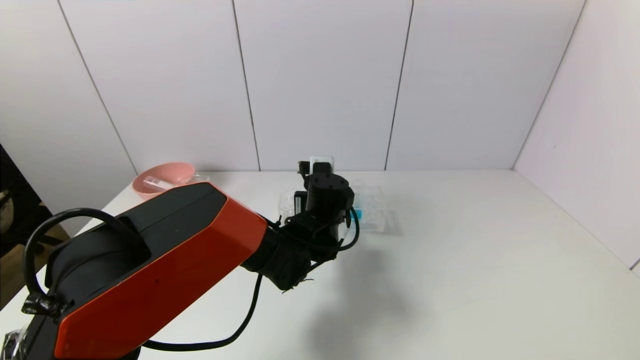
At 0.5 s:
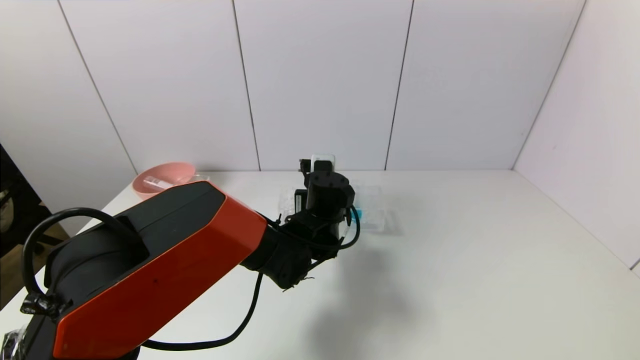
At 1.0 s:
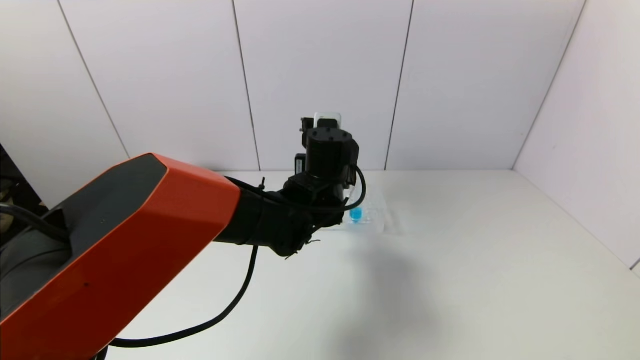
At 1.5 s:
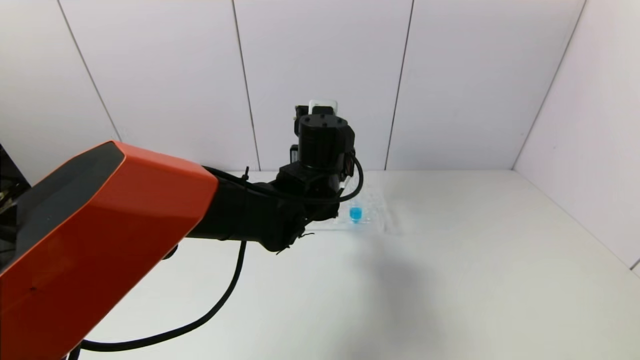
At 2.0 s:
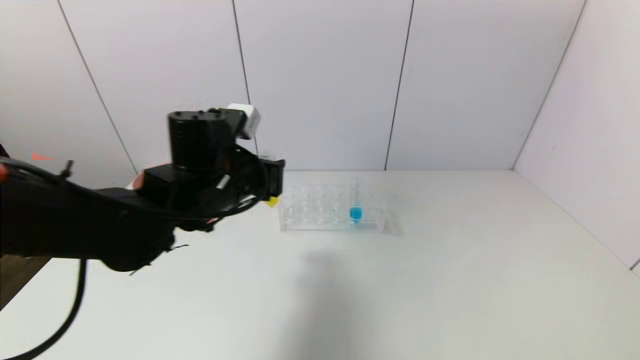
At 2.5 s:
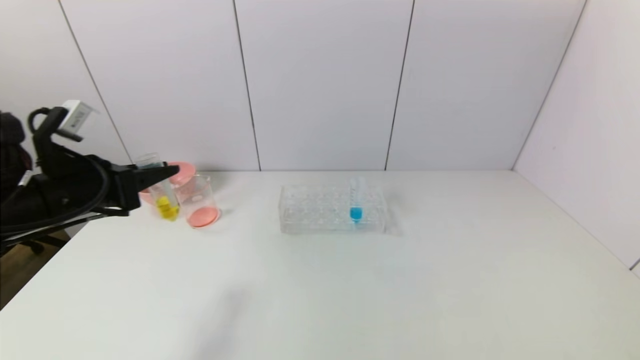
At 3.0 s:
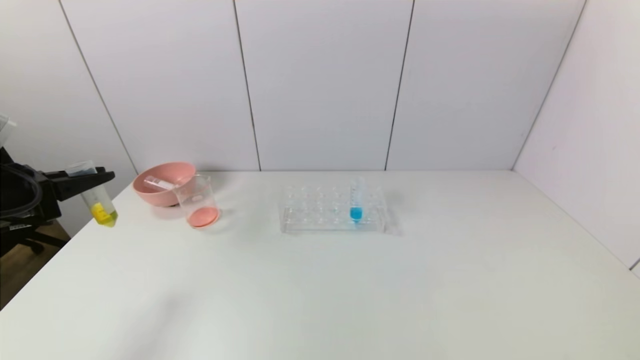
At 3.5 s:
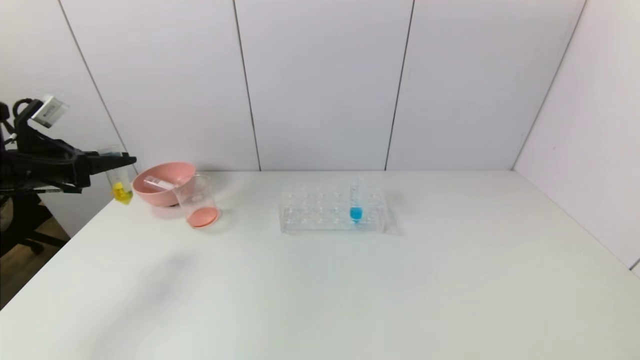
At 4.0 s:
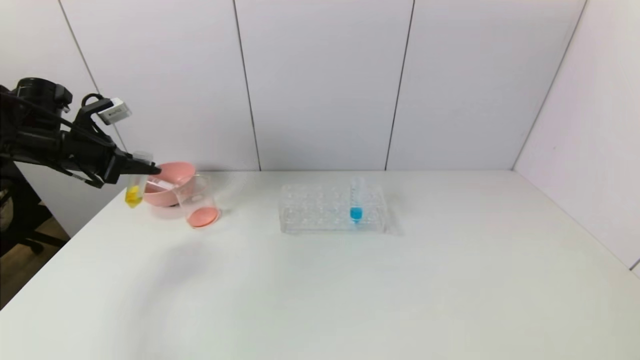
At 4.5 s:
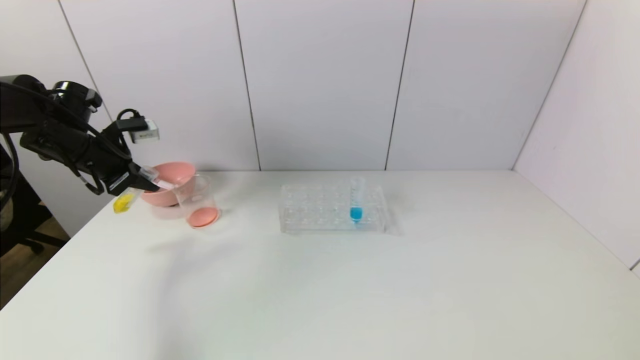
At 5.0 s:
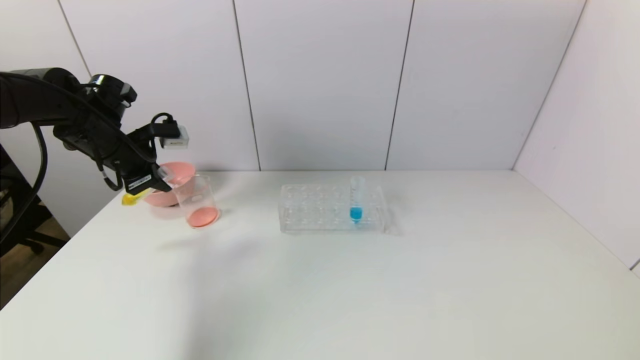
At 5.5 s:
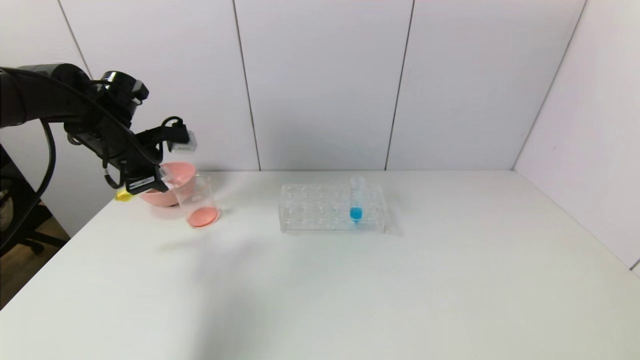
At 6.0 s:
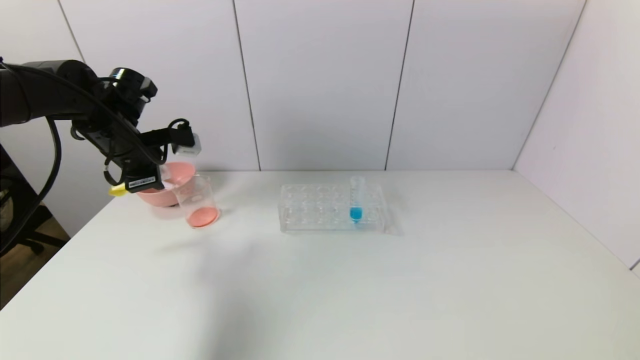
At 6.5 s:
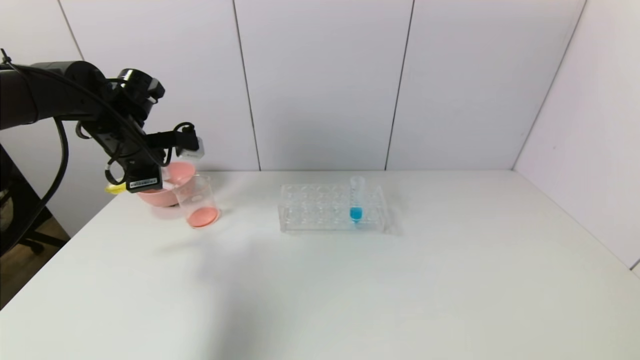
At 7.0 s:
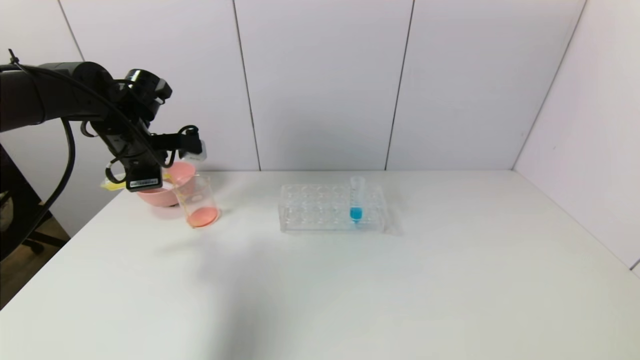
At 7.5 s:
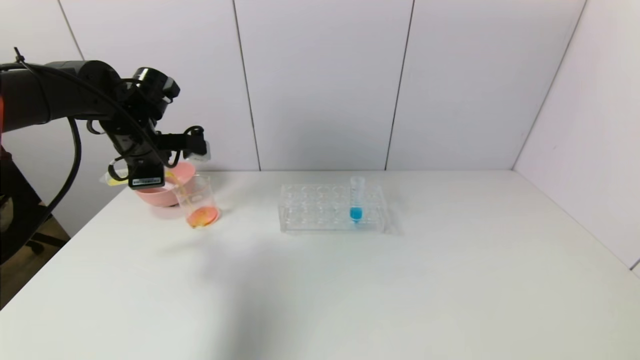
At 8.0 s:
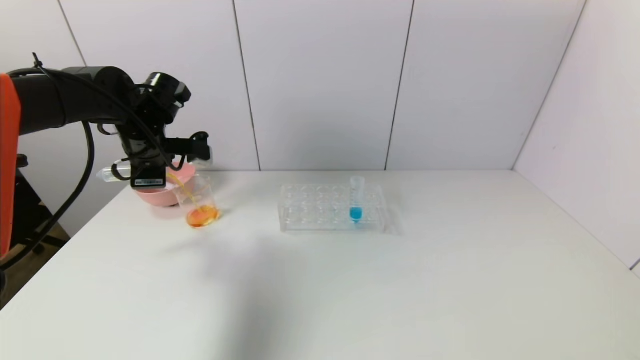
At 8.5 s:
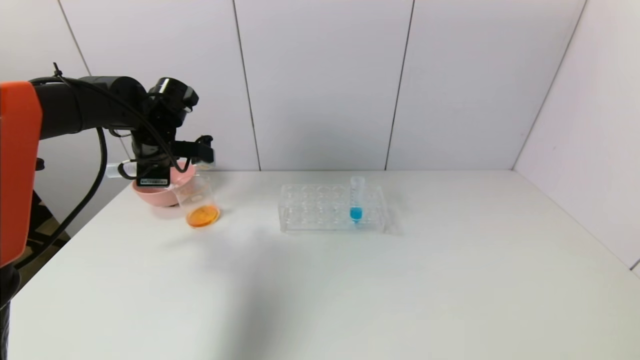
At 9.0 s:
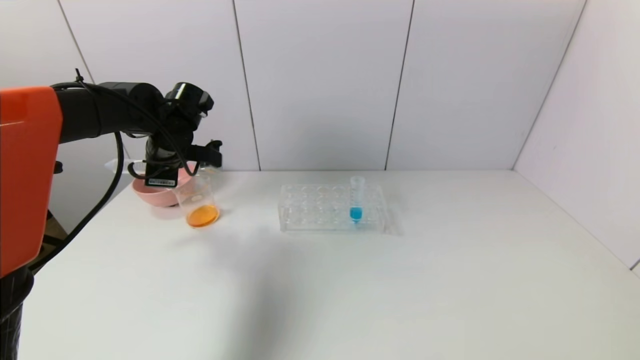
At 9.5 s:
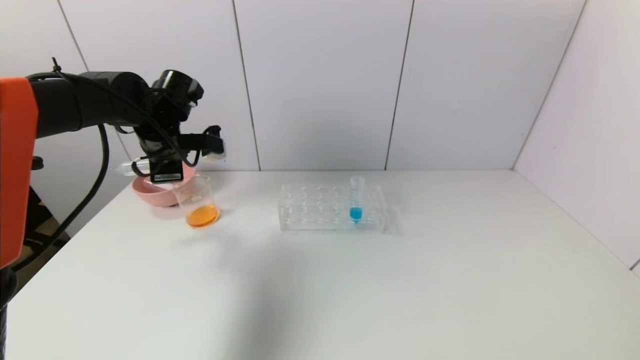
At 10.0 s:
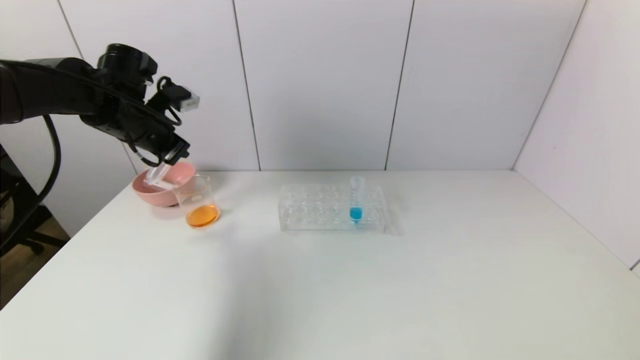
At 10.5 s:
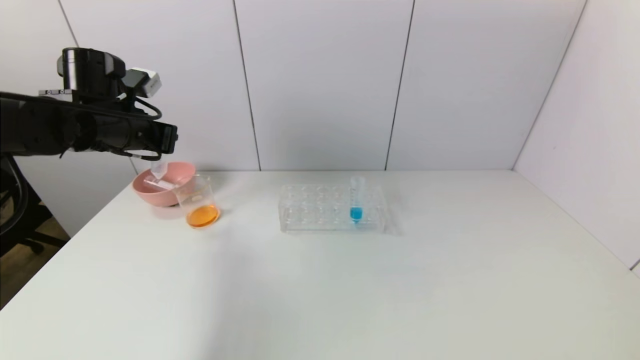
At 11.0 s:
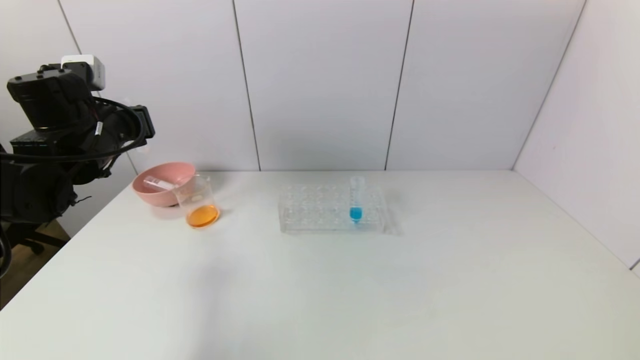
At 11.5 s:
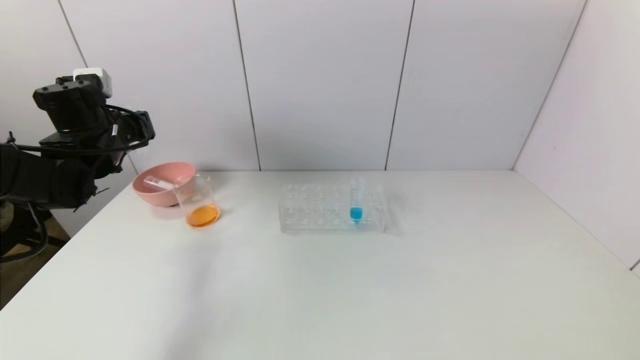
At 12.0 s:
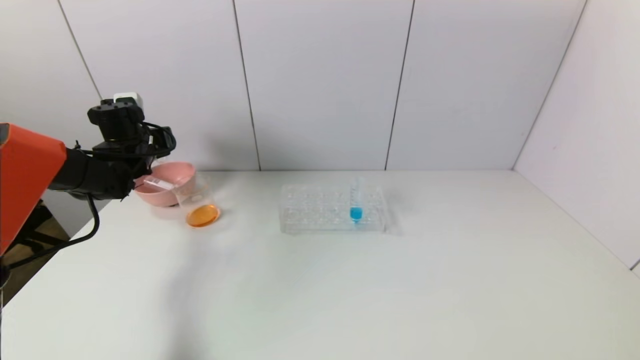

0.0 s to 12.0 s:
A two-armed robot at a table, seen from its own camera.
Task of the whole recording: pick up the test tube with yellow pigment and the test tube with red pigment by grippers and pour them into the beaker.
Step, 0.5 to 9.0 s: Pour the yellow reagent into the graduated cylinder with the left gripper.
0.0 to 2.0 s: The left gripper heads to the left and upward, covering some 20 cm.
2.0 to 4.0 s: The left gripper shifts some 25 cm to the left.
4.0 to 6.0 s: The left gripper goes roughly 10 cm to the right.
10.0 to 12.0 s: The left gripper heads downward, forward and to the left, covering about 15 cm.

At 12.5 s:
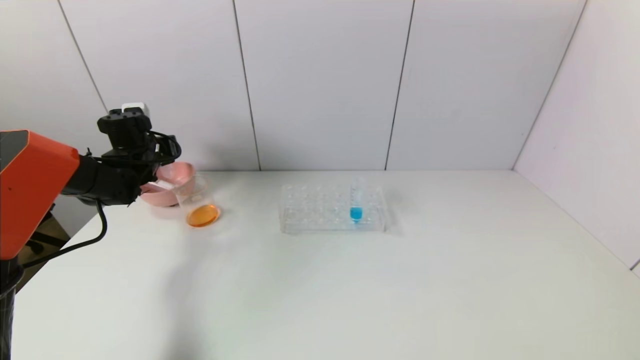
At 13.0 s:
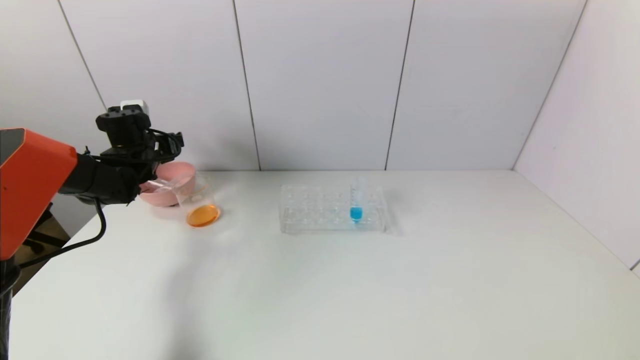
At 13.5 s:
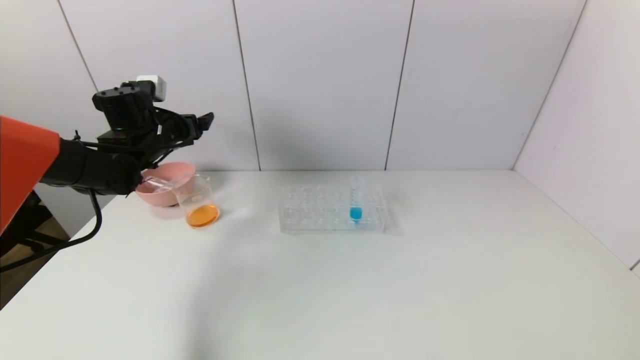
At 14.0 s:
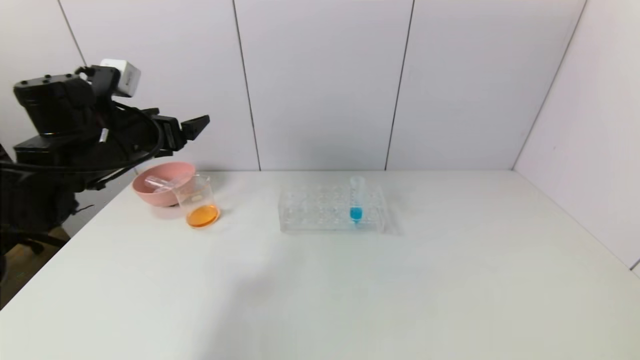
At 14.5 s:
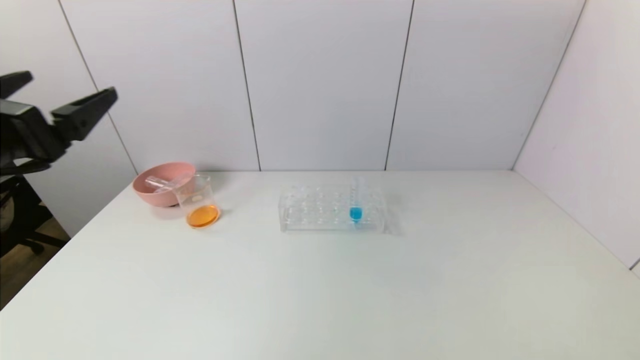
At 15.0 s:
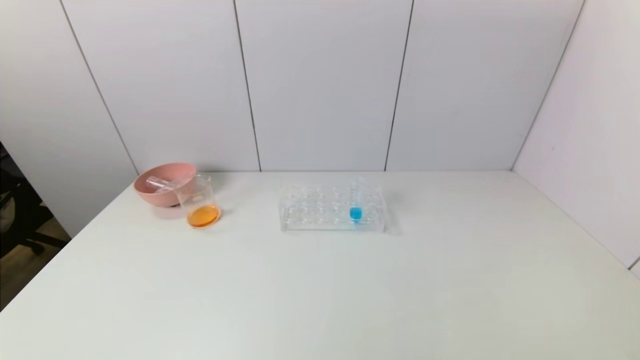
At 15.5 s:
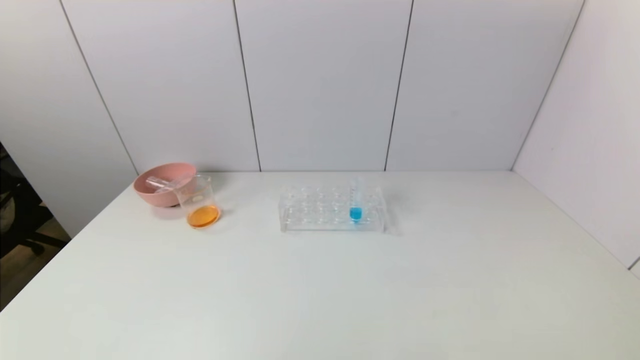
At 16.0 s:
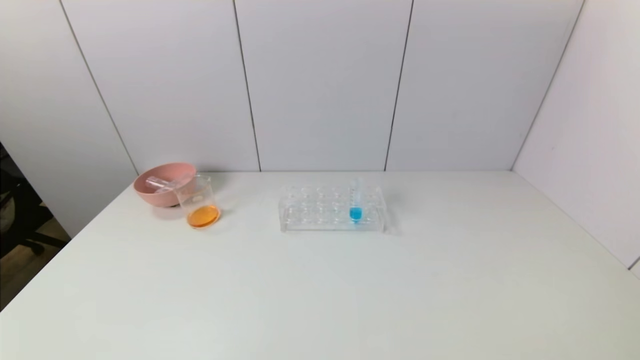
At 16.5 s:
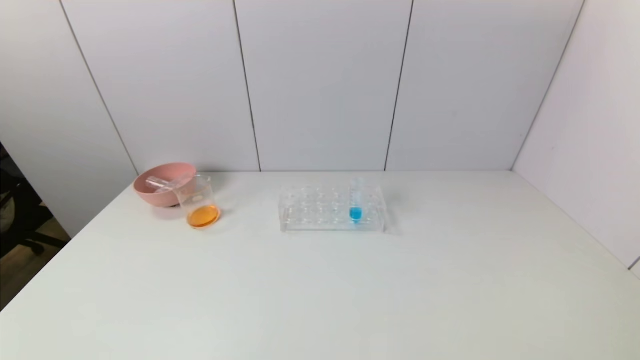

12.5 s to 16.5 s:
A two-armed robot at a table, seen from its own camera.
Task of the whole recording: pick up the test tube with yellow pigment and the test tube with red pigment by grippers and pour them into the beaker.
12.5 to 14.5 s: The left gripper is displaced backward and upward by about 35 cm, and opens.
14.5 to 16.5 s: The left gripper shifts approximately 30 cm downward and backward.
